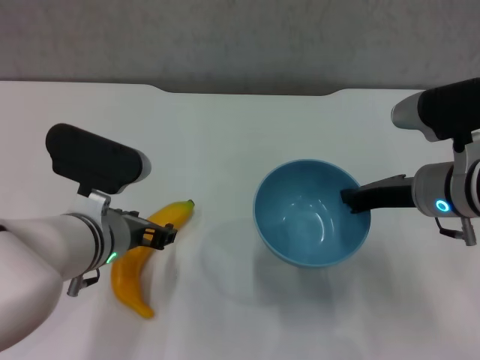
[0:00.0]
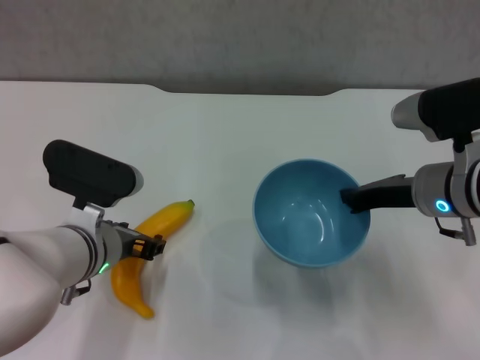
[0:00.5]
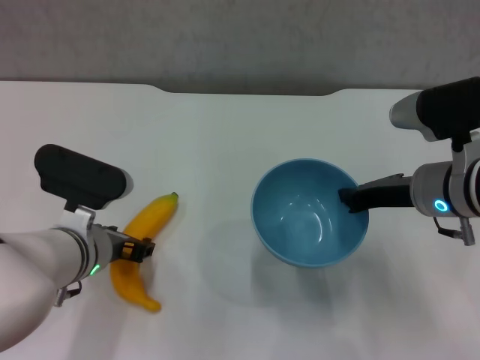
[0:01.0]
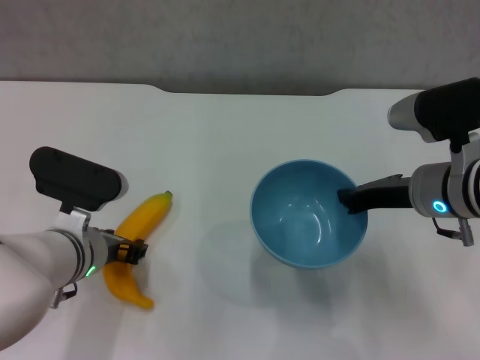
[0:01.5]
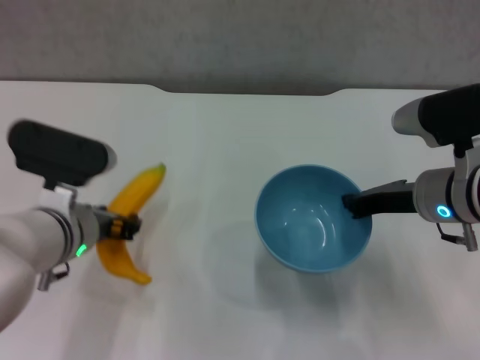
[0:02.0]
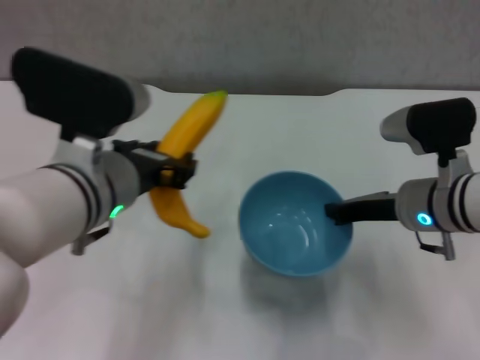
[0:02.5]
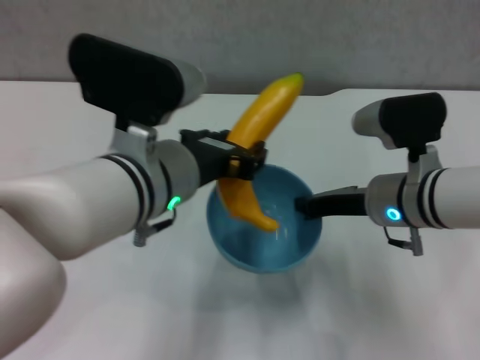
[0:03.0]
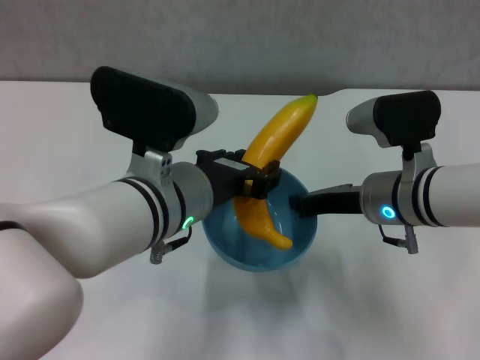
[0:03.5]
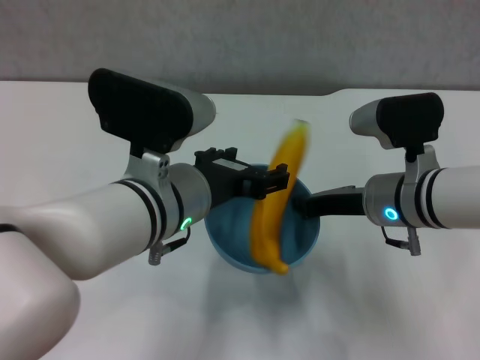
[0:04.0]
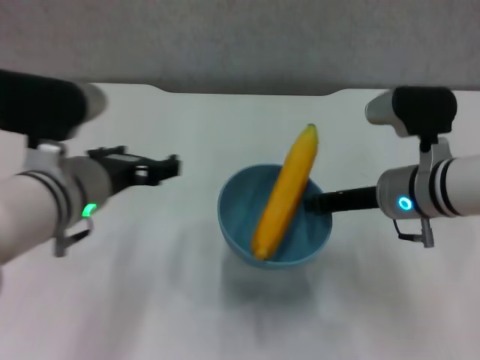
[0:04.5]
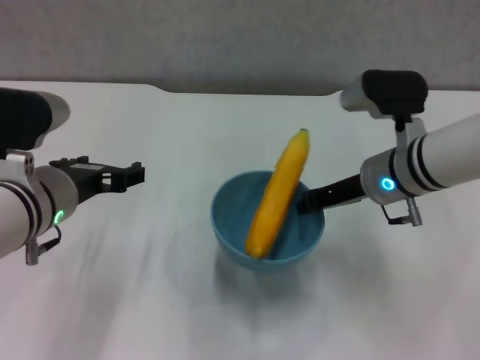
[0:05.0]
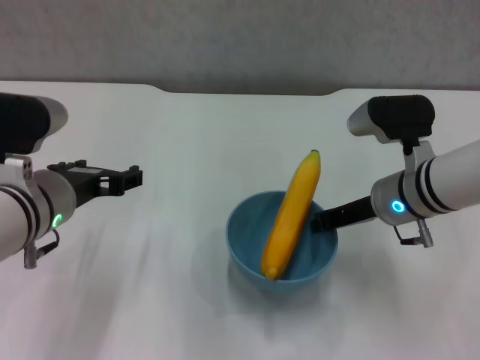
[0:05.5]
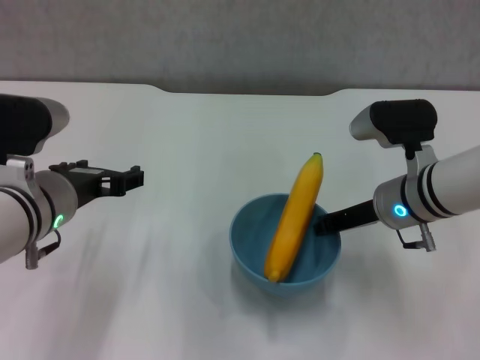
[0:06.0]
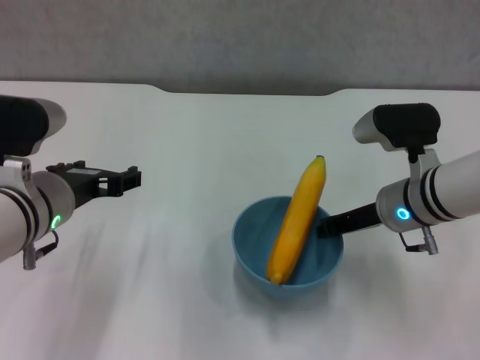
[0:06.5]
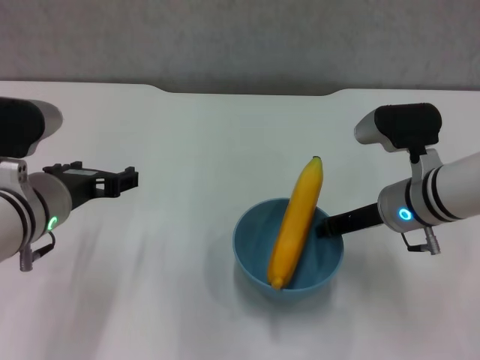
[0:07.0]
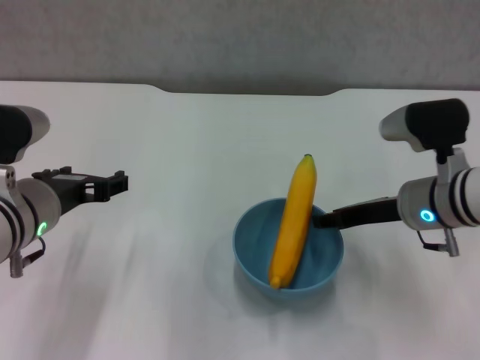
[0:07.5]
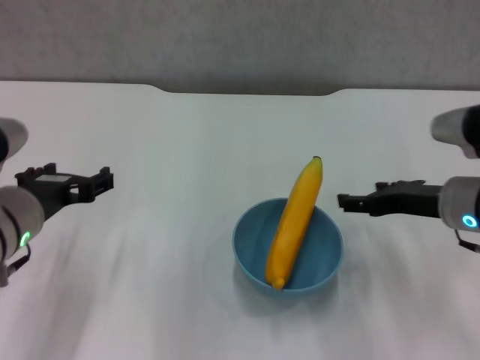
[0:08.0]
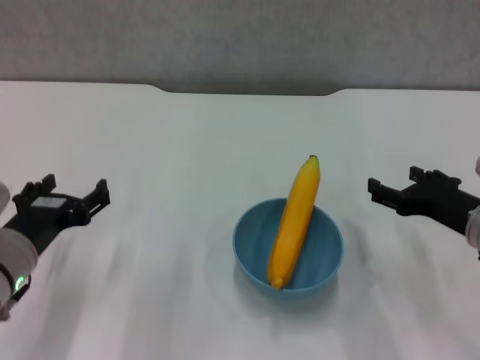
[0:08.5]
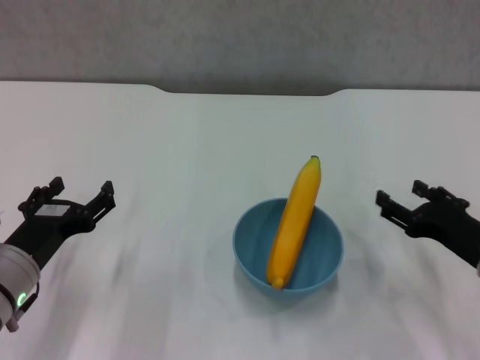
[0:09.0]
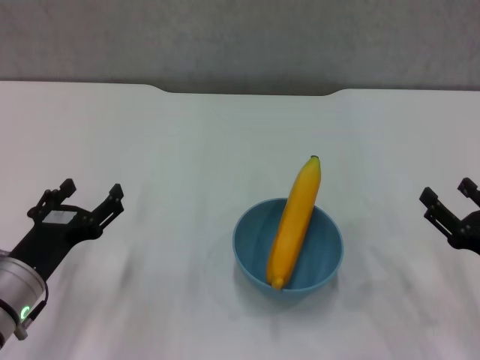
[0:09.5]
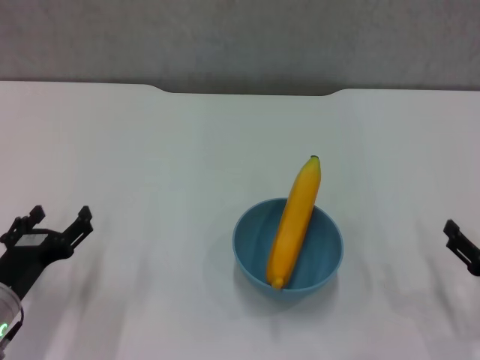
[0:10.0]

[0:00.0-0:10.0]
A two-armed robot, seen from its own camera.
Step, 0:00.0 to 0:01.5: Grasp the banana with left gripper.
Step, 0:02.0 to 0:03.5: Place the banana in the blue bowl with left gripper.
Step, 0:04.0 to 0:07.5: Place the bowl on the table with right gripper.
0:00.0 to 0:02.0: The grippers make only small movements.
0:02.0 to 0:04.0: The left gripper goes roughly 10 cm to the right and upward, and opens.
0:04.0 to 0:06.0: The left gripper goes some 10 cm to the left, and opens.
0:06.0 to 0:08.0: The right gripper moves to the right, roughly 5 cm, and opens up.
0:08.0 to 0:10.0: The right gripper moves backward, downward and to the right, roughly 20 cm, while the left gripper moves downward and to the left, about 15 cm.

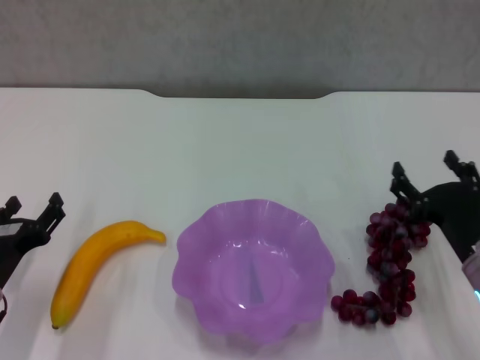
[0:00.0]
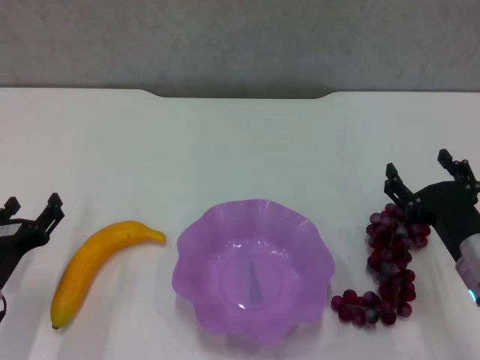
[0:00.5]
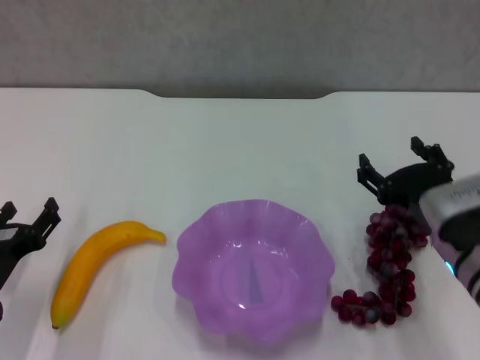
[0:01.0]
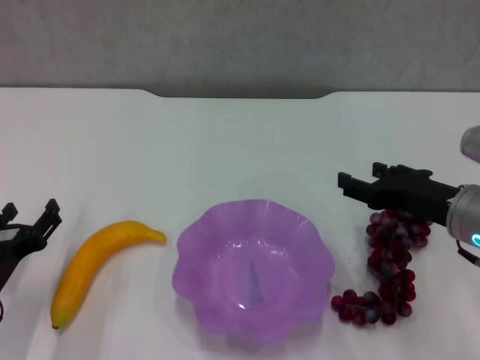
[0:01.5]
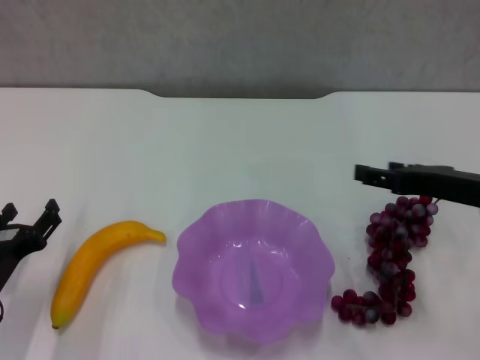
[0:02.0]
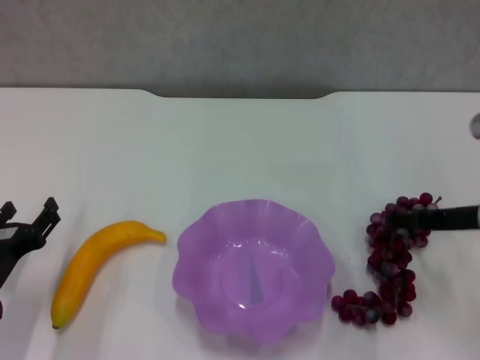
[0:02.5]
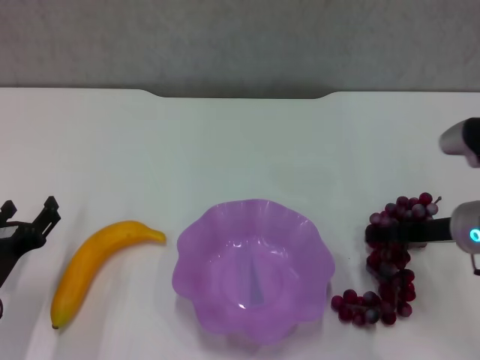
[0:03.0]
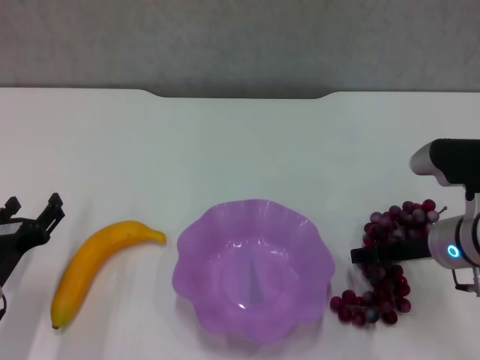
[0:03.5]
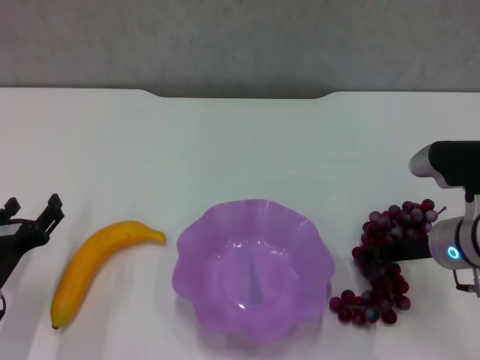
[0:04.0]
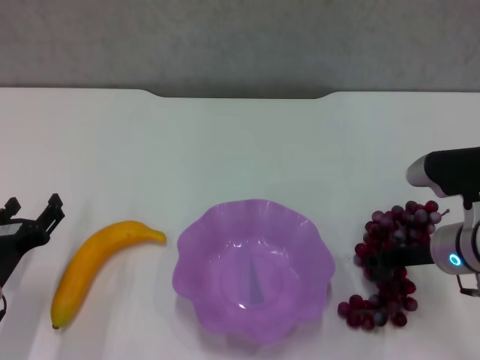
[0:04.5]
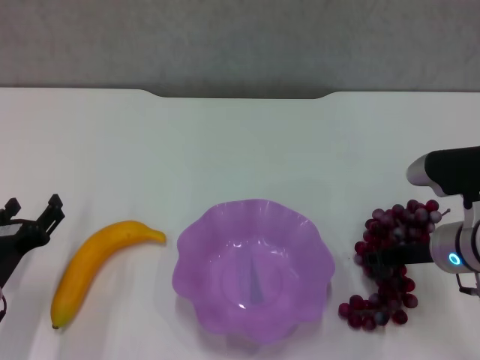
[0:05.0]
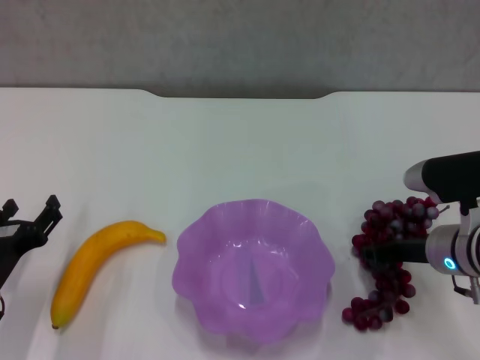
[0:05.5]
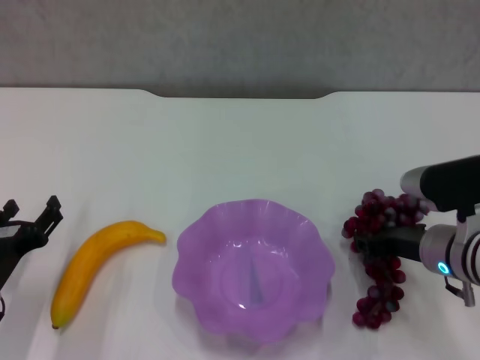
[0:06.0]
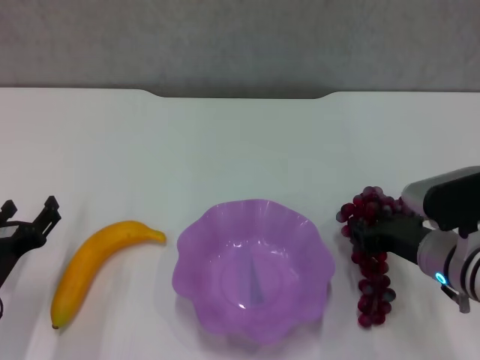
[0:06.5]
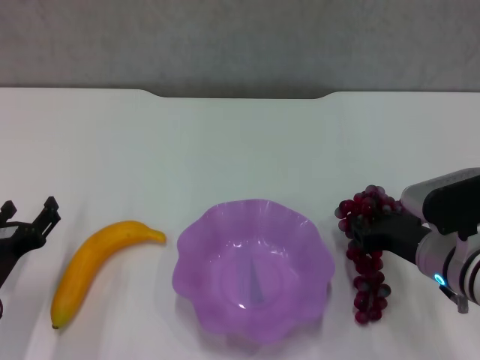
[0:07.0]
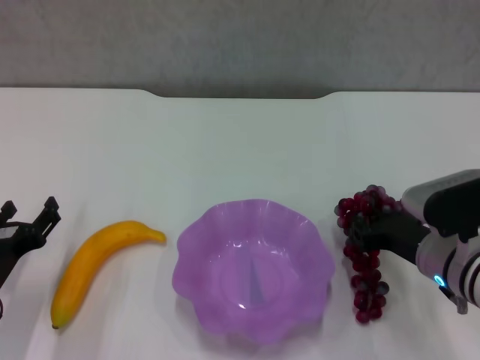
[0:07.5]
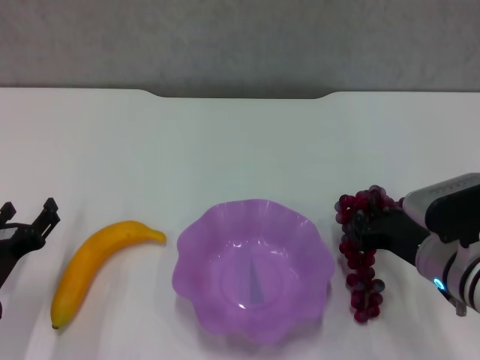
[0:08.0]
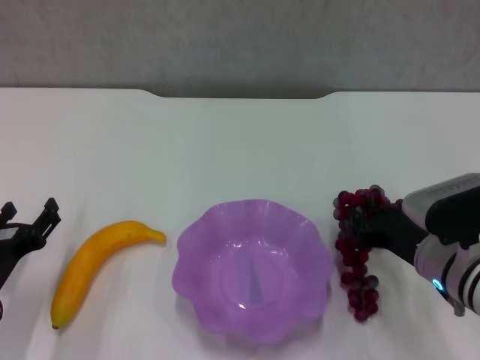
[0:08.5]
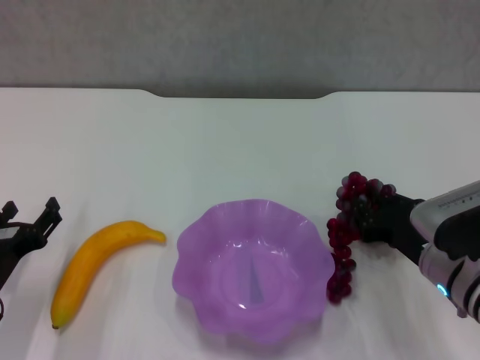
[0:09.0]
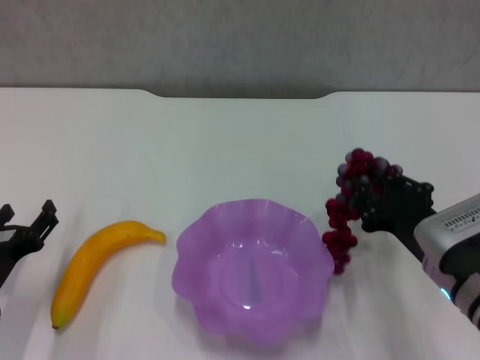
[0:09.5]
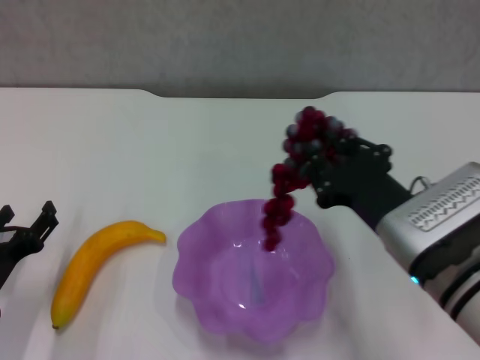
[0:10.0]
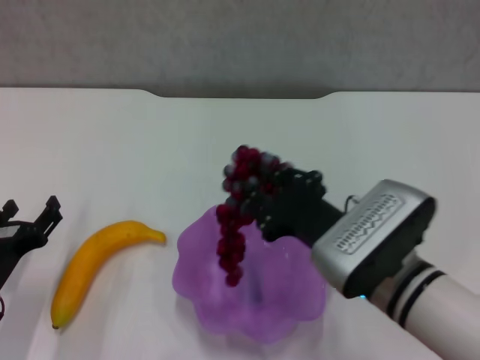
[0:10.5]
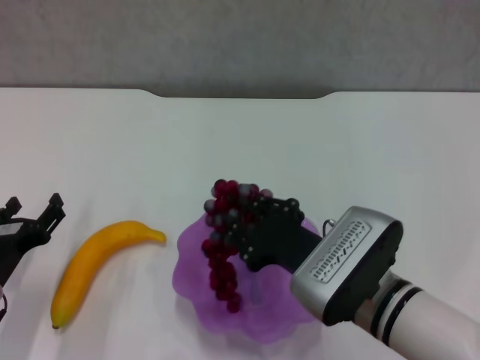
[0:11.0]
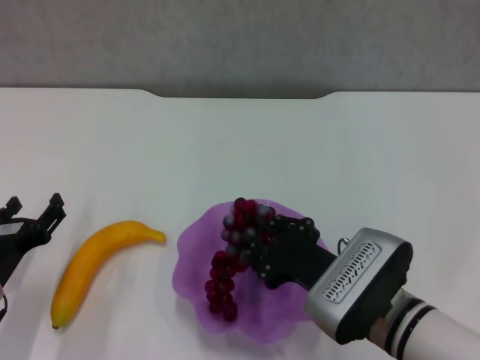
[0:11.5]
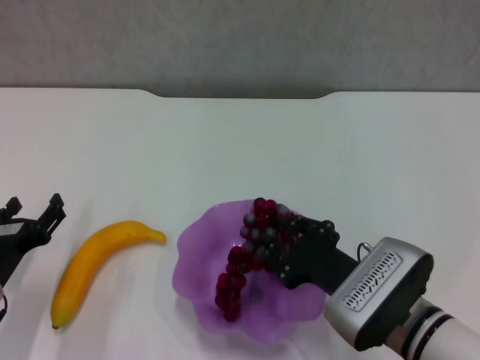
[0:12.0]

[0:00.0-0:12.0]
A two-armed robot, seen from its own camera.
Step, 0:00.0 to 0:04.5: Grasp the grape with right gripper.
0:00.0 to 0:02.0: The right gripper moves upward, some 10 cm.
0:02.0 to 0:04.0: The right gripper goes roughly 10 cm downward.
0:04.0 to 0:06.0: The right gripper closes up.
0:06.0 to 0:08.0: The grippers move only a little.
0:08.0 to 0:10.0: The right gripper goes roughly 10 cm upward and to the left.
0:10.0 to 0:12.0: The right gripper moves downward, approximately 10 cm.

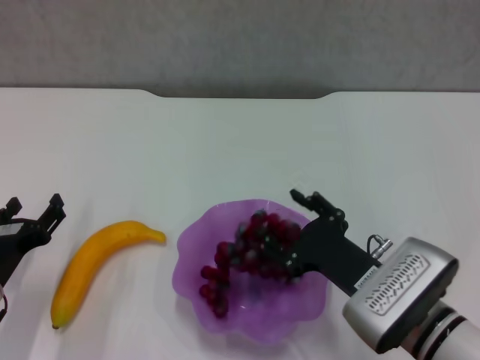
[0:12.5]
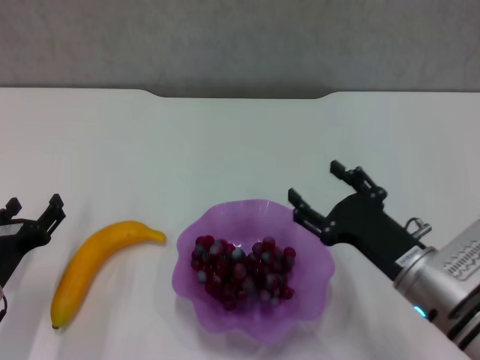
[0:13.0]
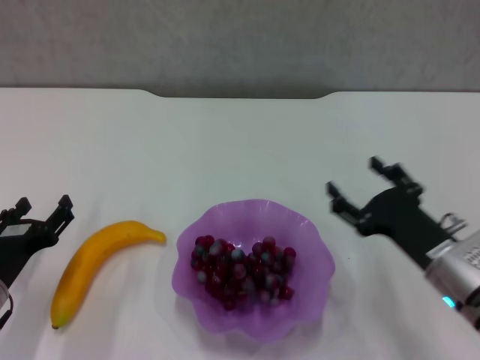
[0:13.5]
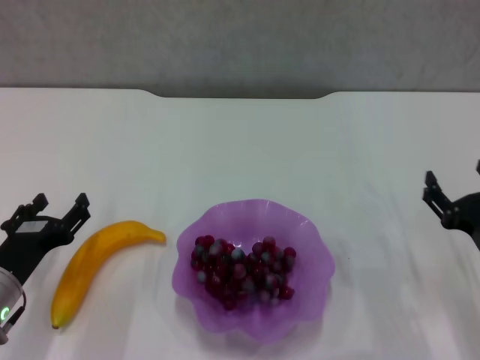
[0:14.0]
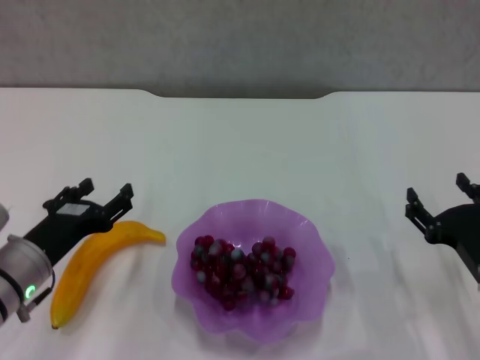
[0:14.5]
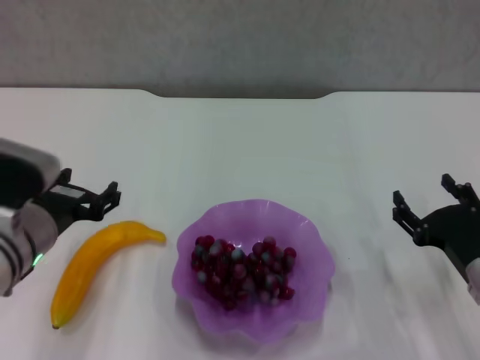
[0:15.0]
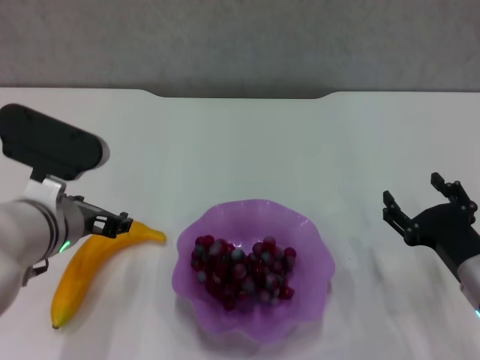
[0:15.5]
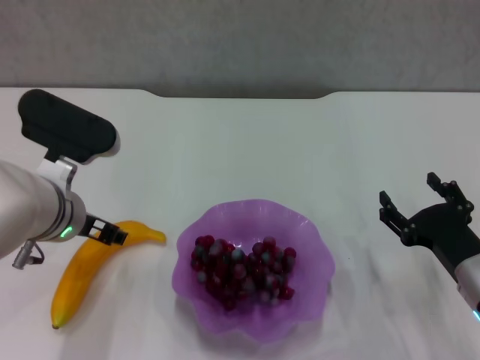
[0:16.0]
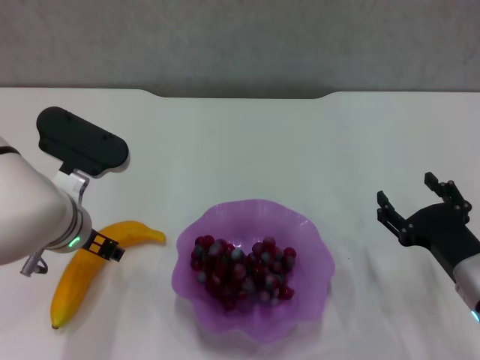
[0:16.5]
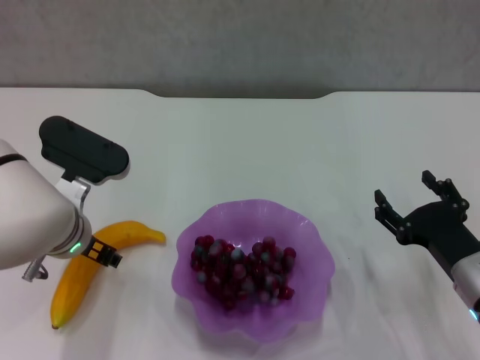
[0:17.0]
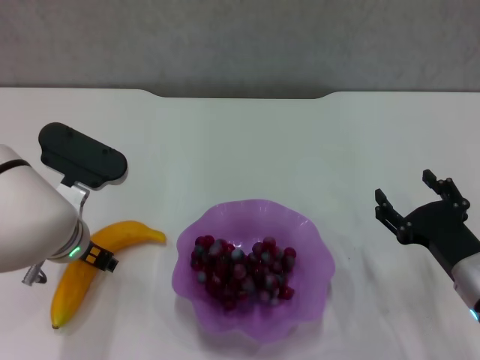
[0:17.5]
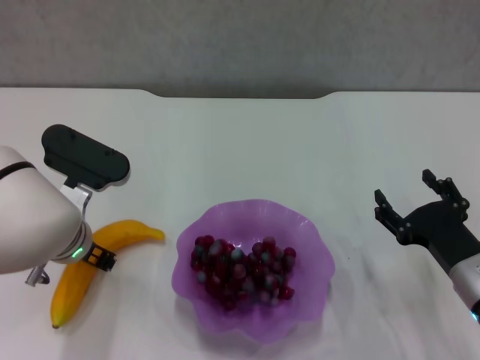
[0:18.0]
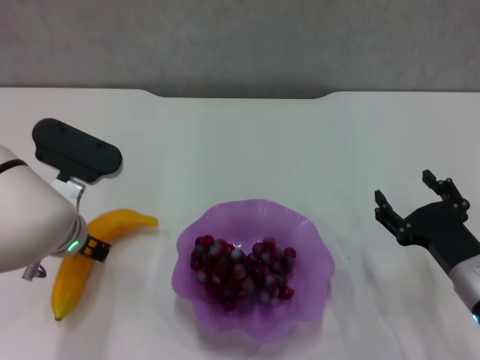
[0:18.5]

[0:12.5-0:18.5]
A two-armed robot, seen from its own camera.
Step, 0:13.5 to 0:18.0: Grasp the banana with left gripper.
0:12.5 to 0:14.5: The left gripper shifts by approximately 5 cm. Meanwhile the right gripper goes roughly 10 cm to the right, and opens its fingers.
0:14.5 to 0:16.5: The left gripper shifts roughly 10 cm to the right, upward and forward.
0:16.5 to 0:18.5: The left gripper closes.
